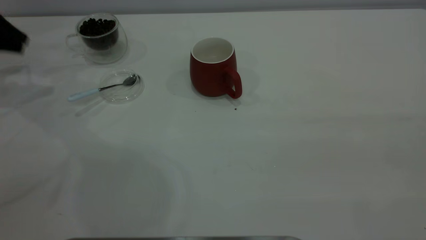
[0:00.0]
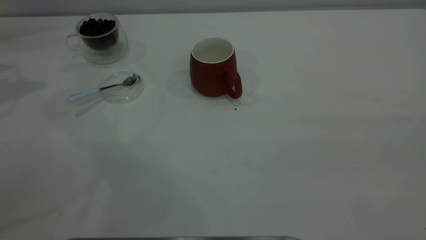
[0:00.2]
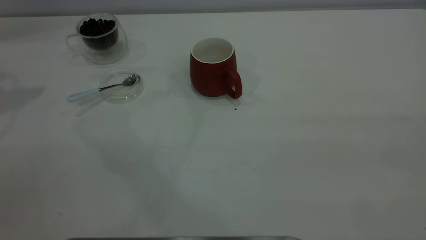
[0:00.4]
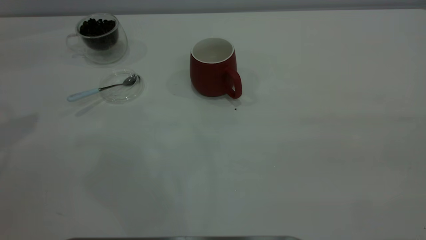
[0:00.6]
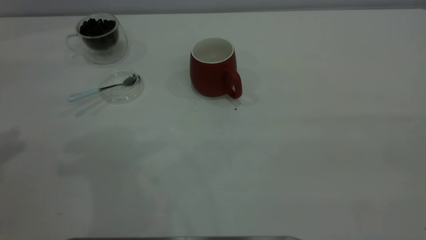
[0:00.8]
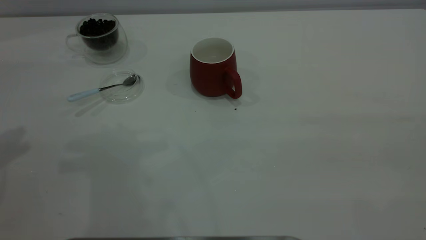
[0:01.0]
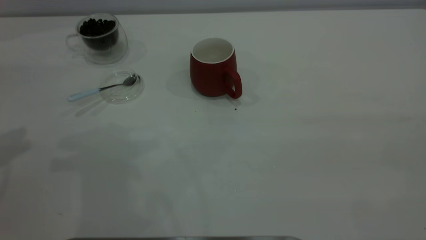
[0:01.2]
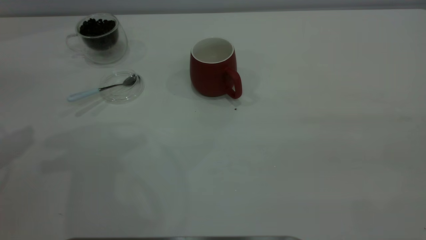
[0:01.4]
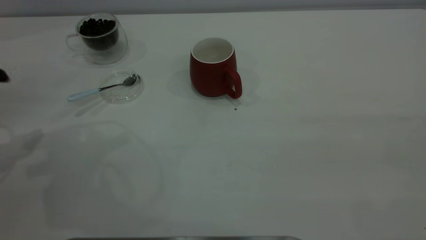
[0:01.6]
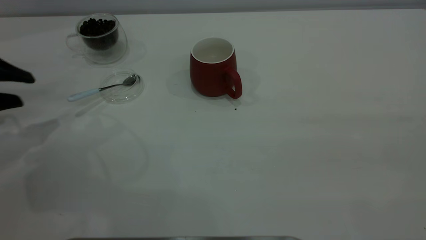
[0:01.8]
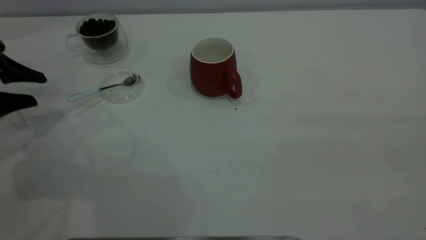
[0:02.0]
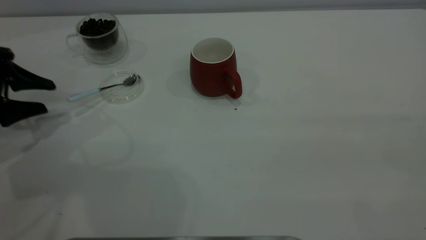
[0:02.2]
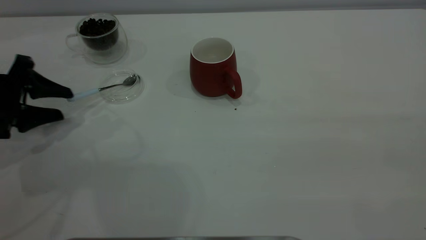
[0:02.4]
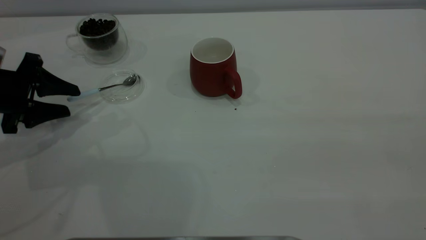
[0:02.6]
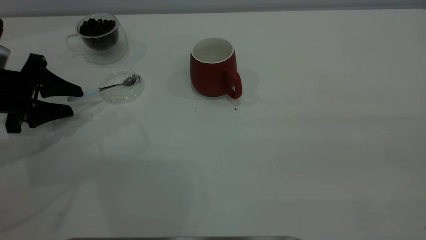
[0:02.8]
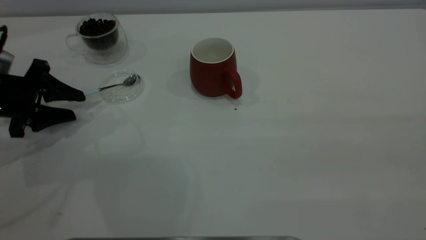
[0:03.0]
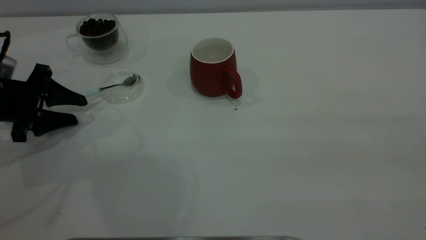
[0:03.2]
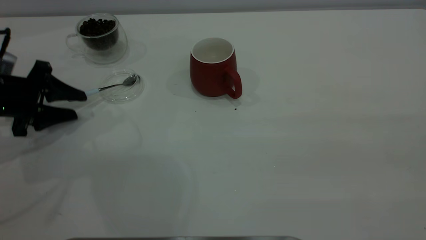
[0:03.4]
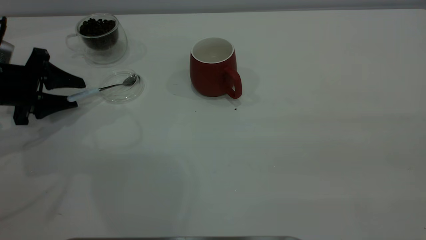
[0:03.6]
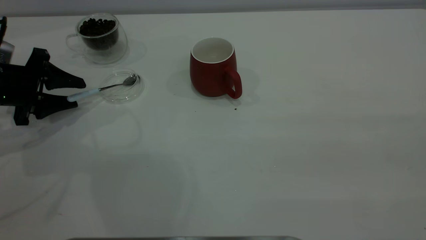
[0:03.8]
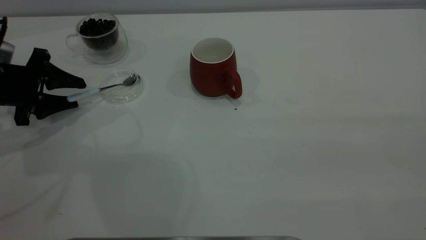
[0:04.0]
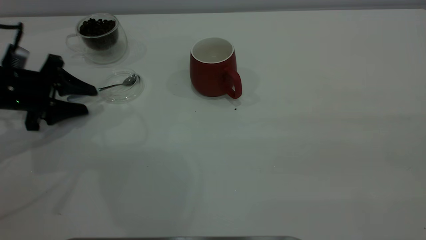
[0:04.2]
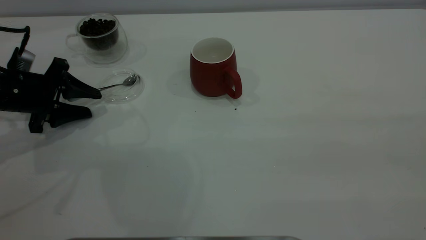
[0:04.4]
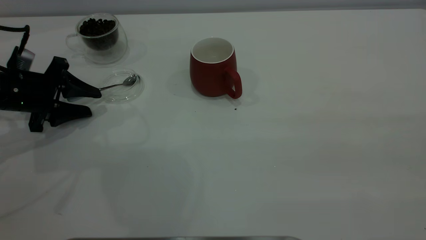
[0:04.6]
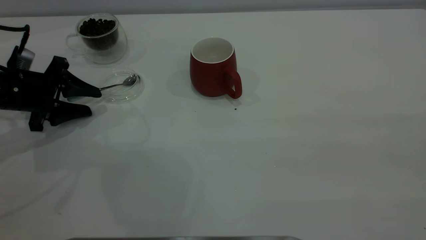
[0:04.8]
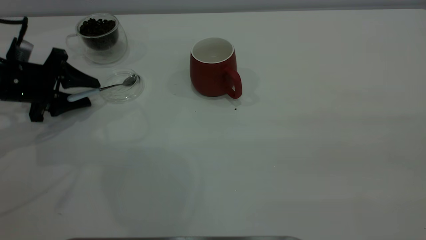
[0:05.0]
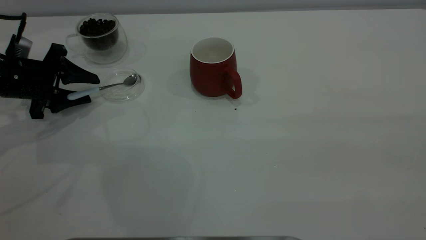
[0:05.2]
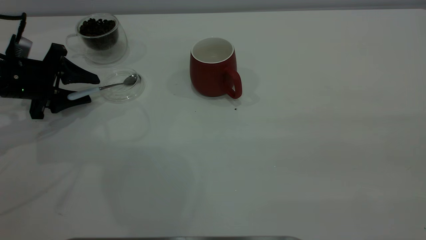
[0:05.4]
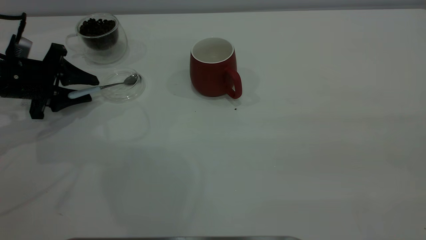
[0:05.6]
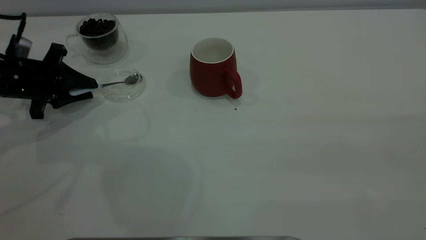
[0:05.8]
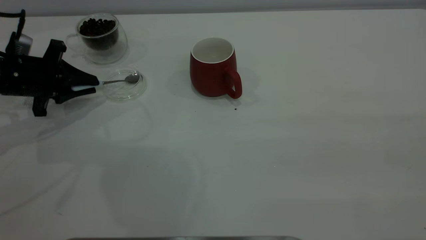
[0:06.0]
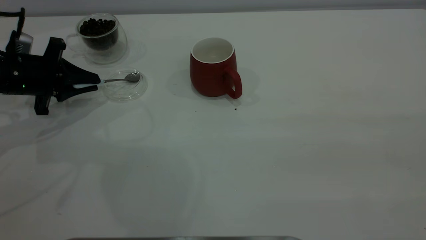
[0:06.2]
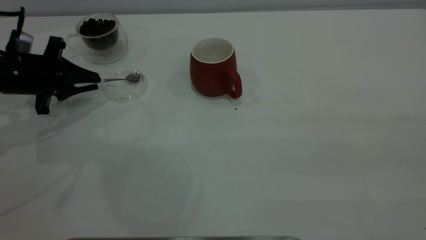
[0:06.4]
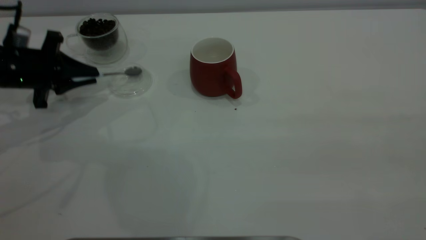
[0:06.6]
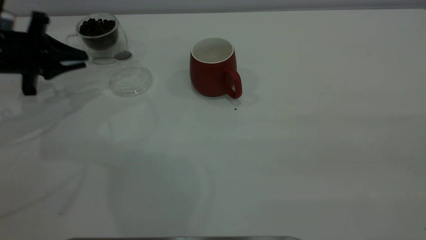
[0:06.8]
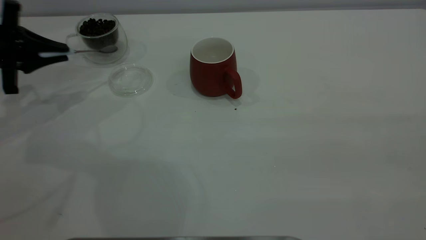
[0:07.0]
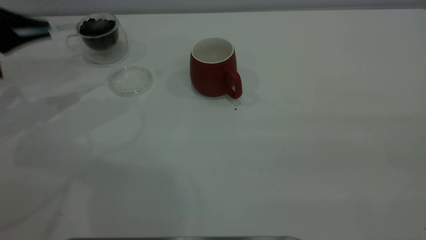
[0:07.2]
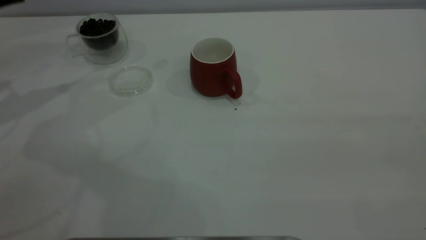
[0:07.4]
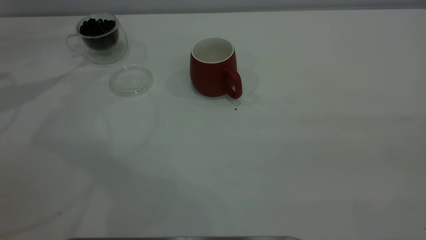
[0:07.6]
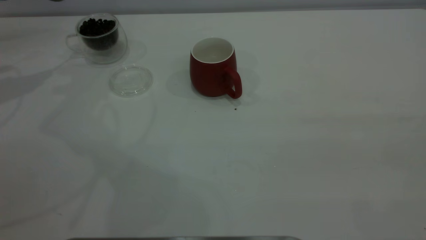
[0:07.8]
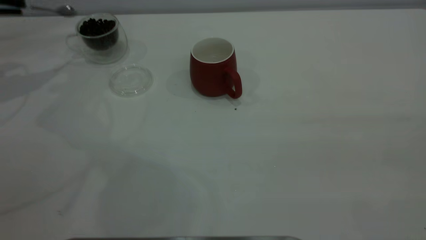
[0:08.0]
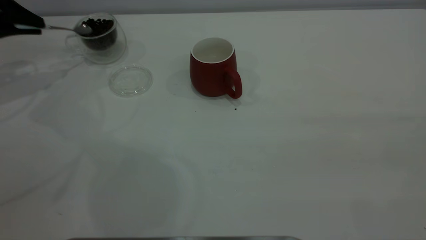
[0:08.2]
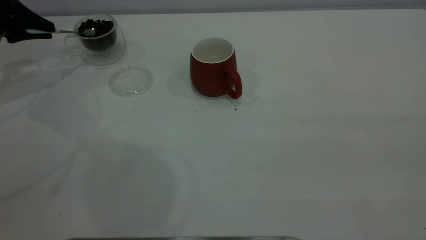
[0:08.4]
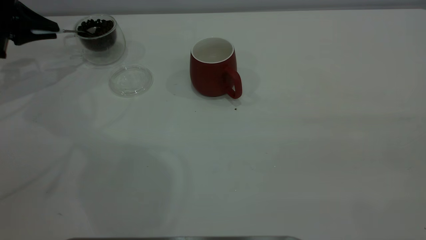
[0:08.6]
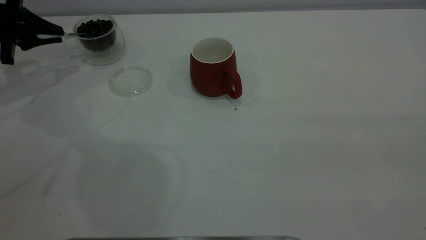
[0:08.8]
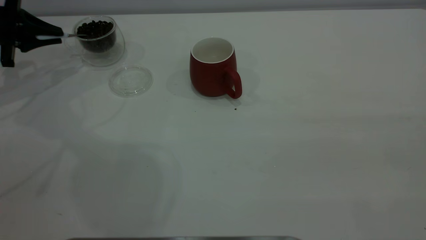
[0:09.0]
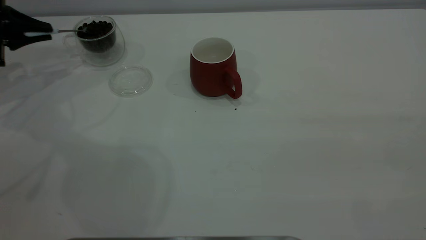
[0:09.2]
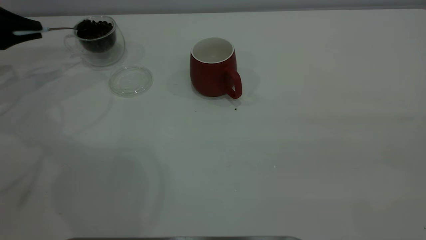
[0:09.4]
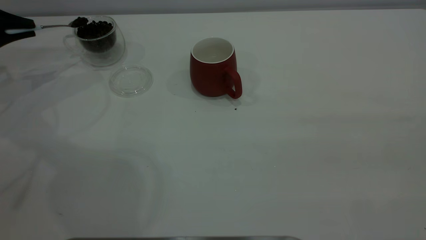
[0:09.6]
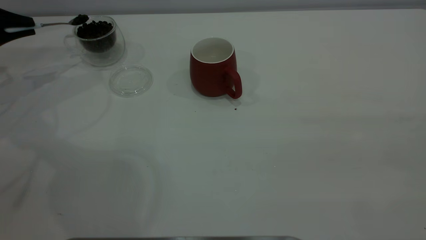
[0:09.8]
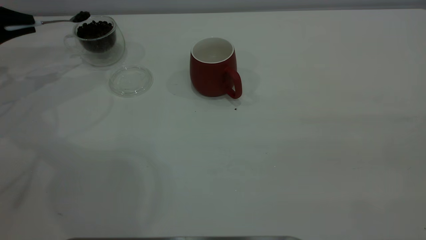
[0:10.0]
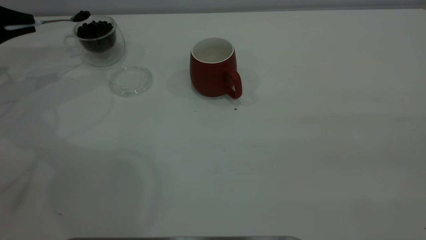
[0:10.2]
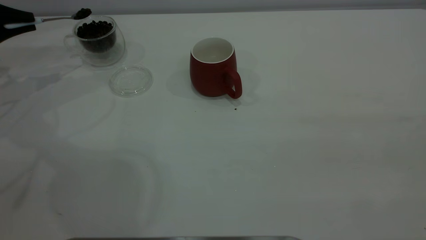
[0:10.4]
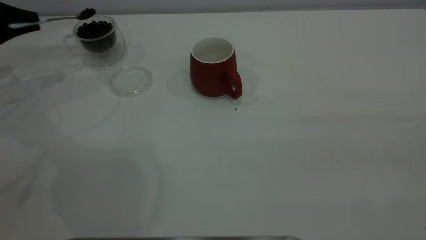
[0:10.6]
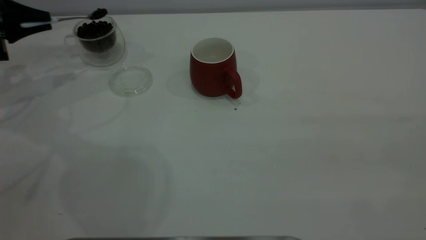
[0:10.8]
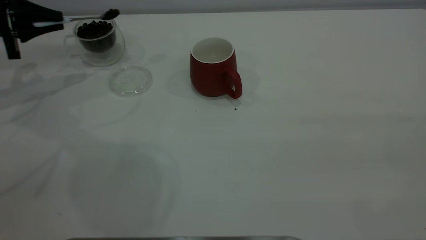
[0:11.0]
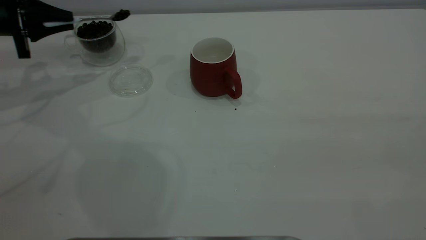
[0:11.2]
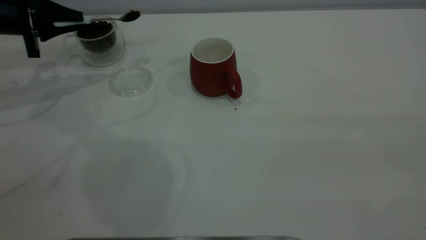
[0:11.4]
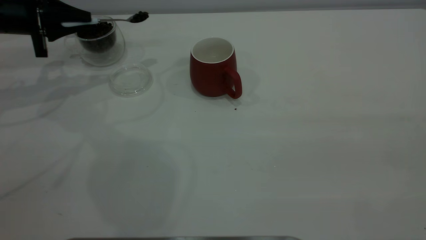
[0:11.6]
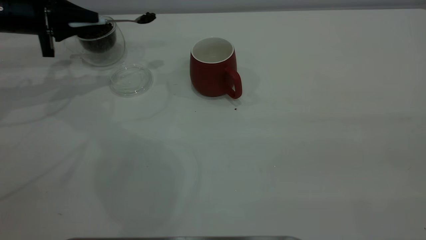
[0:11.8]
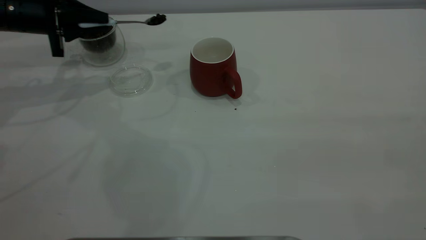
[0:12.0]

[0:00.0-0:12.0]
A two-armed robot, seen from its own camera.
Task of the whole recording: the right gripper place the red cup in the center of the table, the left gripper take the blue spoon from the cup lid and scoop out the coffee beans from the coffee cup and put them into the red cup, the left gripper put the spoon back into the cup lid.
Step, 0:00.0 to 0:06.8: Pick up the spoon.
0:00.0 to 0:01.6: The left gripper moves backward, some 15 cm, and opens up.
0:01.6 to 0:03.0: The left gripper heads downward and forward, covering some 10 cm.
0:03.0 to 0:04.4: The grippers move only a little.
0:04.4 to 0:06.0: The left gripper closes up.
0:06.0 to 0:07.6: The left gripper shifts some 20 cm upward and to the left.
0:07.6 to 0:09.0: The left gripper is displaced downward by roughly 10 cm.
0:09.0 to 0:10.4: The grippers stay close to where they were, moving slightly.
0:10.4 to 0:12.0: The left gripper moves to the right, roughly 10 cm.

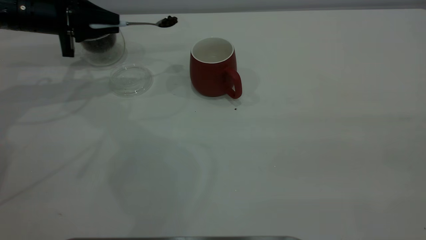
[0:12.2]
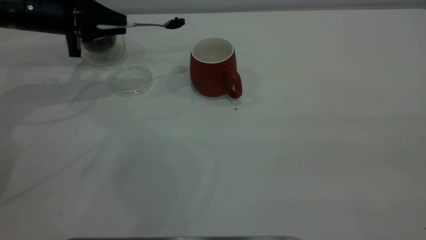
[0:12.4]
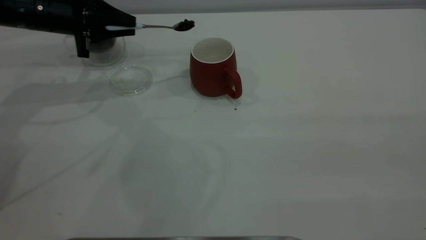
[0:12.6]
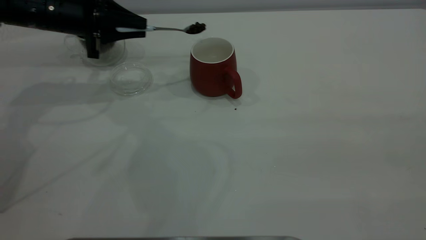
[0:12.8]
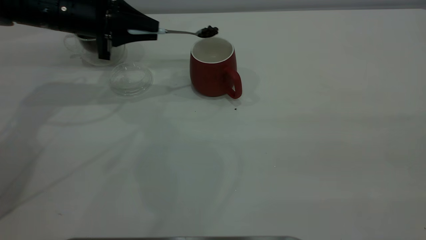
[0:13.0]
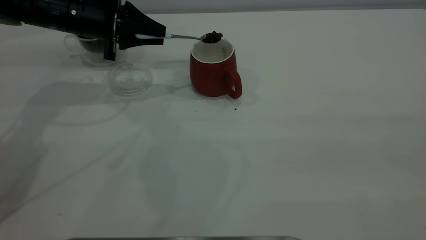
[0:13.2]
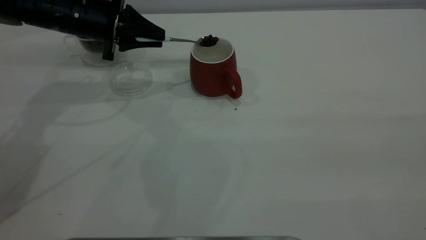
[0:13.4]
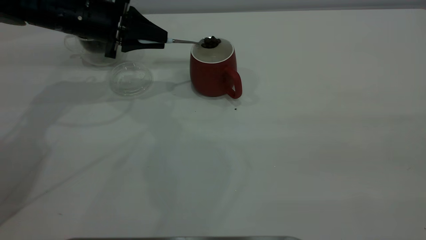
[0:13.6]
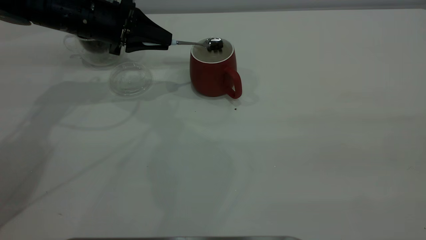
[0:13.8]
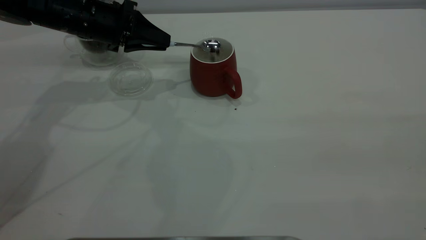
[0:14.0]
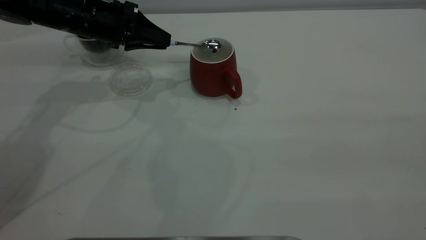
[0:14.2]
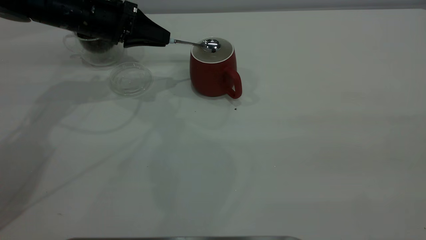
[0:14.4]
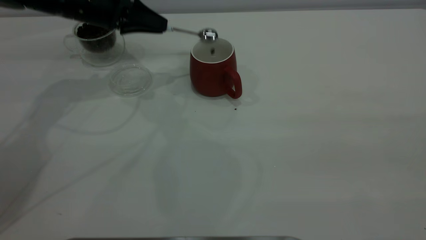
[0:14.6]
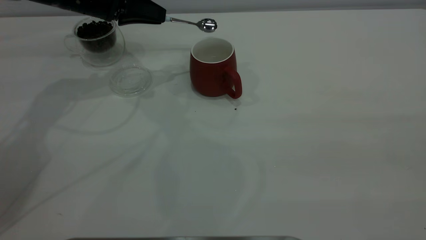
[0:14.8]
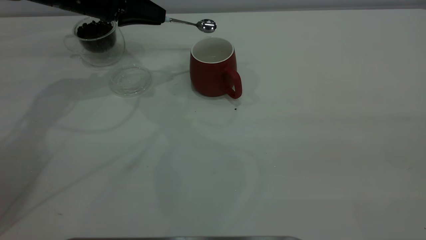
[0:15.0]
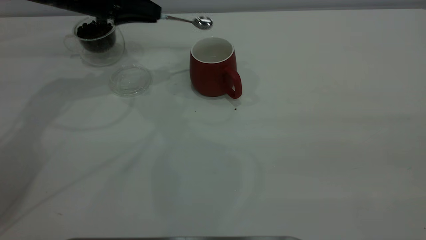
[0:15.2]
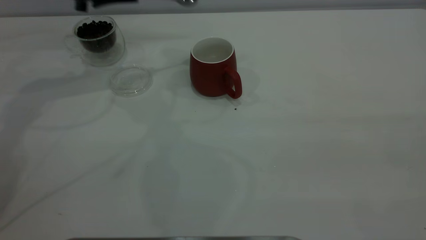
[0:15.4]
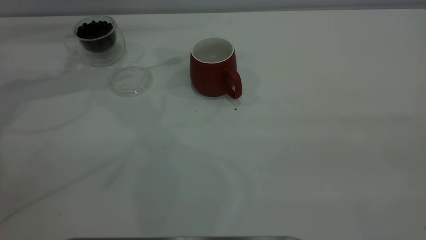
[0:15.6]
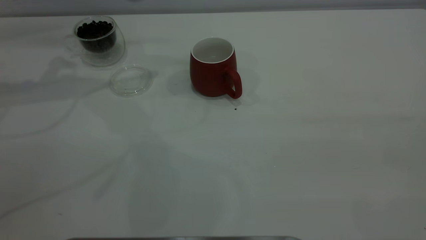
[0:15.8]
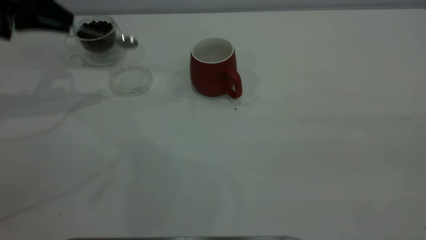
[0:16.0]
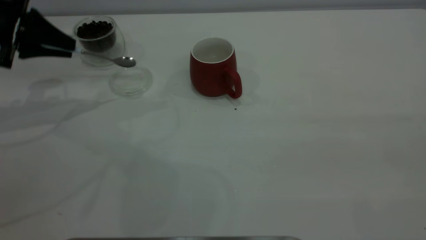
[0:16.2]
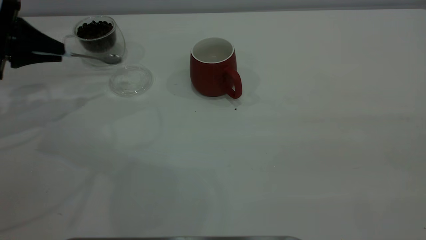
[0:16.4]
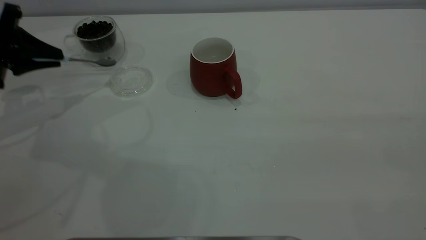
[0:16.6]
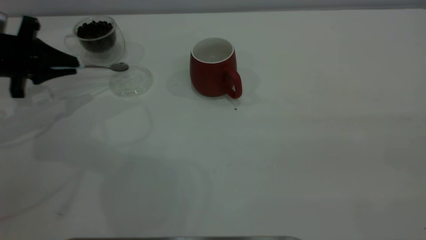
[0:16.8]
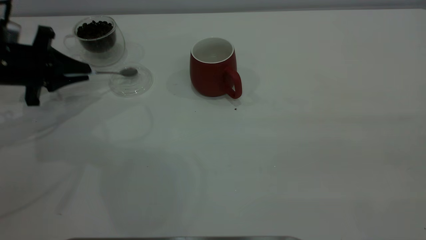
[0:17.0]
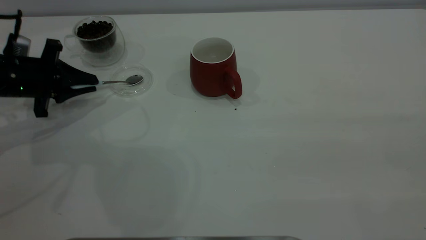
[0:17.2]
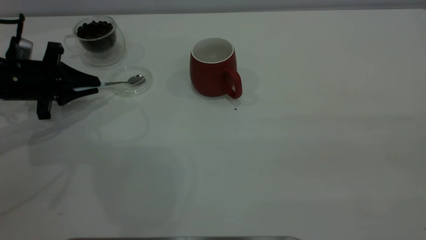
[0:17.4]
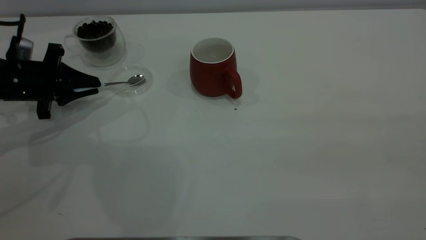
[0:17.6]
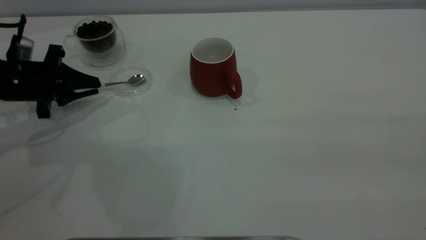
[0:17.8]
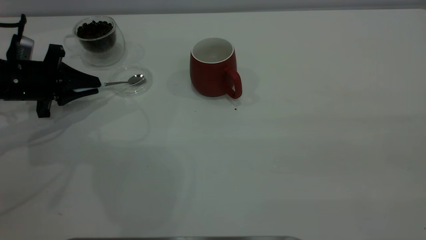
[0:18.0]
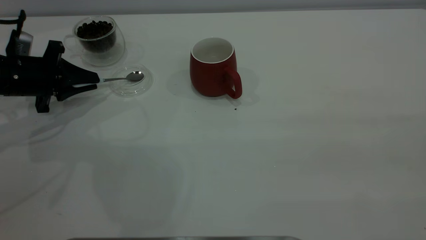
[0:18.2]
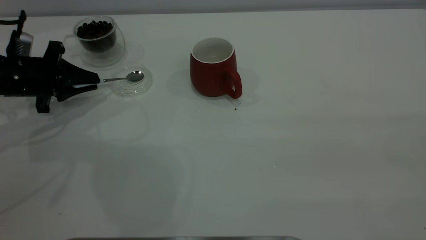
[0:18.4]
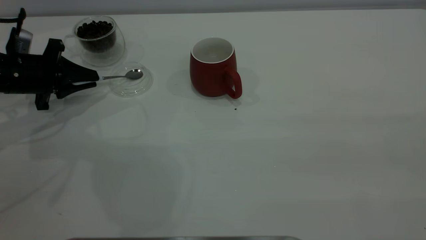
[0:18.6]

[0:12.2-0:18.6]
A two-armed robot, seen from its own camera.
Task of the whole recording: the right gripper place the red cup in the center of the table, the left gripper take the blue spoon from the cup lid and scoop out the coffee beans from the coffee cup and put them into the red cup, the left gripper put the spoon back into the cup lid.
Step, 0:12.2 to 0:15.0: Scoop a spoonful of beans into the cup.
0:12.2 to 0:13.8: The left gripper shifts some 10 cm to the right.
0:13.8 to 0:15.4: The left gripper is displaced upward and to the left by some 10 cm.
0:15.4 to 0:17.0: The left gripper goes about 15 cm downward, backward and to the left.
0:17.0 to 0:18.6: The grippers move only a little.
